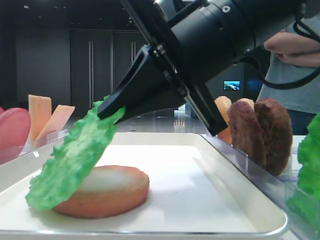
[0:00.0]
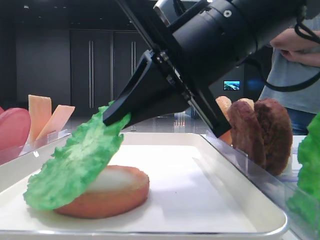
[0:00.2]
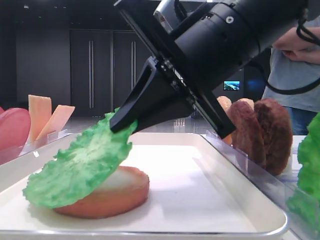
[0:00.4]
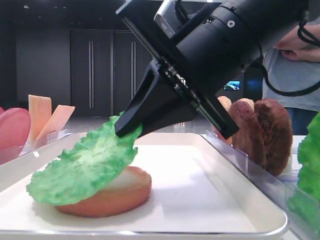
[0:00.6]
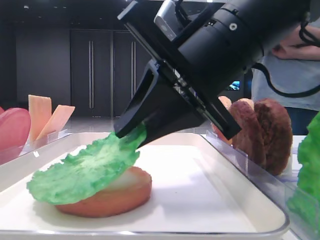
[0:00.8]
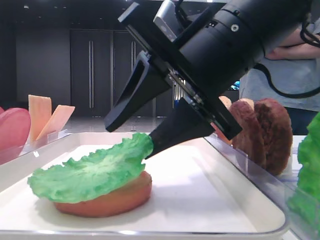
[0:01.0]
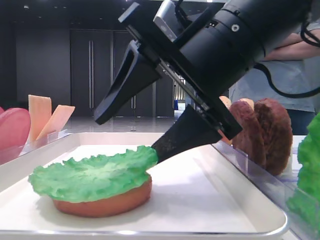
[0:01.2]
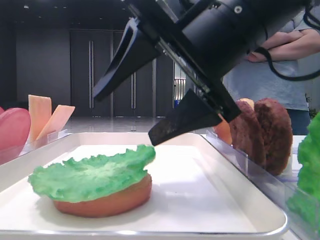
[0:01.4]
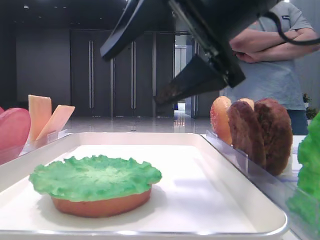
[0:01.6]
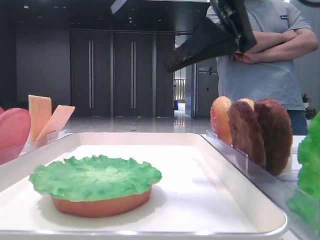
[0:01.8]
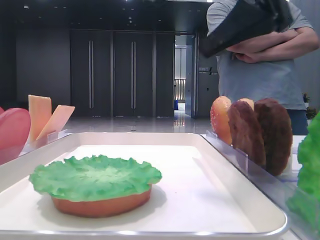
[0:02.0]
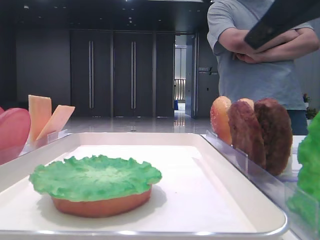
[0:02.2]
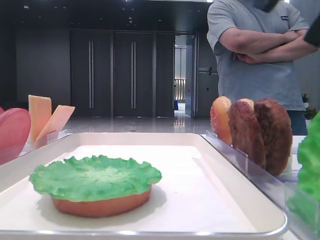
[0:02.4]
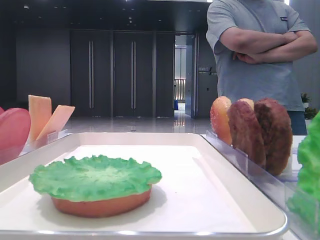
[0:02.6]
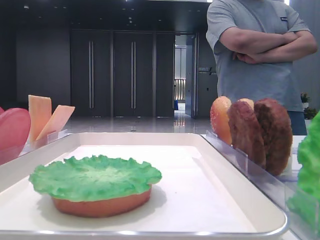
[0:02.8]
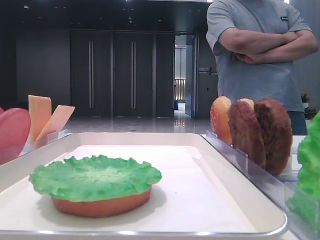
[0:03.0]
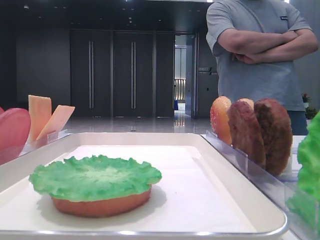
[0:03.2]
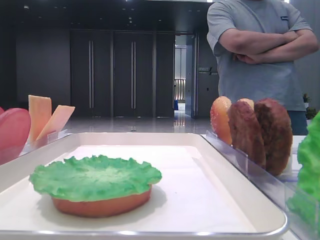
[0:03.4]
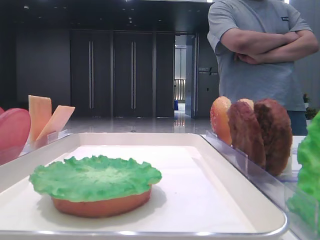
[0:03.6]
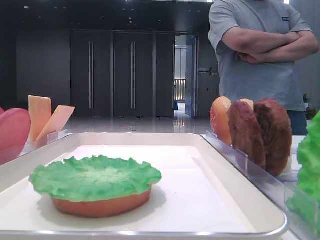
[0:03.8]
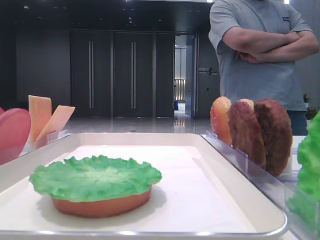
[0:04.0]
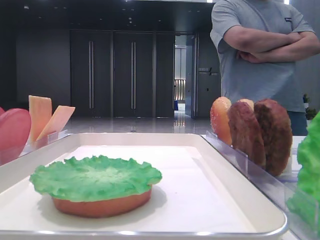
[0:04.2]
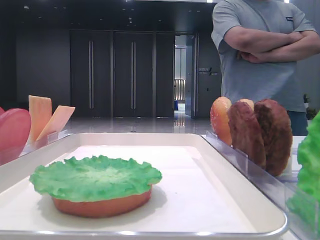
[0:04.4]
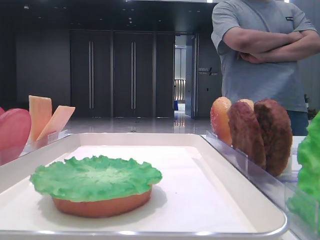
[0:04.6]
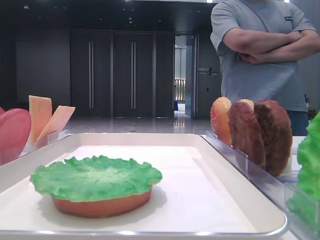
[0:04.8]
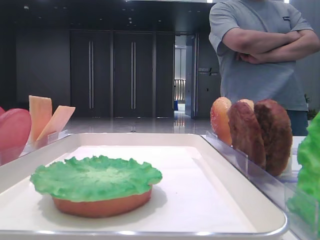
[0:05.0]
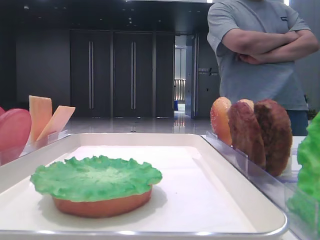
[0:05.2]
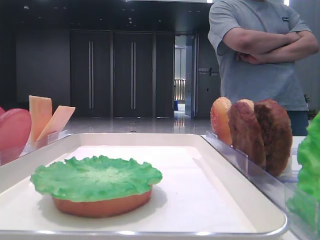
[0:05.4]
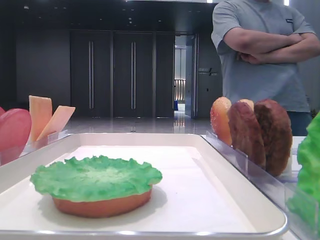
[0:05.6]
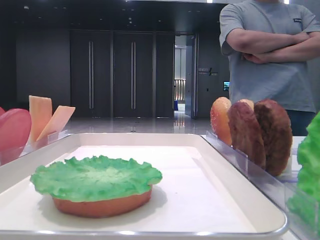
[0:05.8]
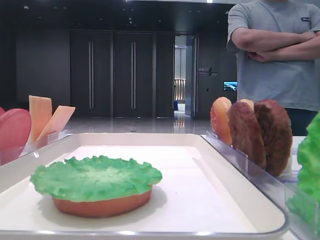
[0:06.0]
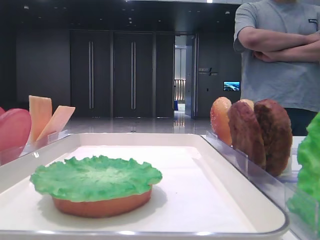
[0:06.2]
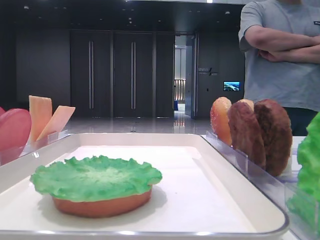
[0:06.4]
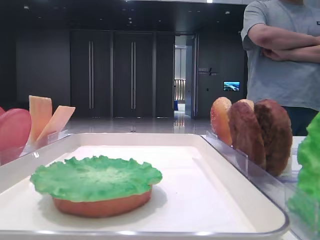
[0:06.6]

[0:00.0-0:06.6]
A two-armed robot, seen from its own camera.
0.0 to 1.6 s: The right gripper opens up.
1.6 to 3.2 s: The right gripper travels to the right by approximately 25 cm.
3.2 to 5.0 s: The right gripper heads backward, covering approximately 20 cm.
5.0 to 6.6 s: The grippers move only a little.

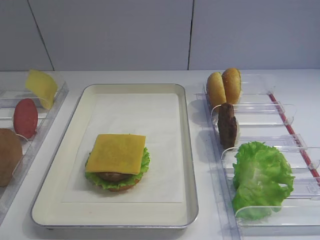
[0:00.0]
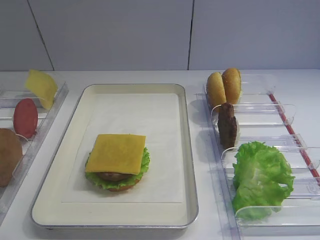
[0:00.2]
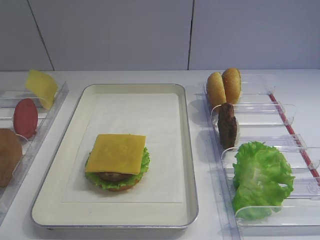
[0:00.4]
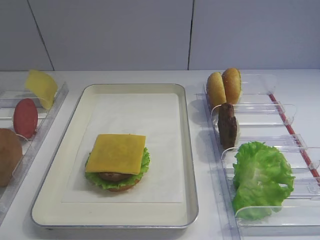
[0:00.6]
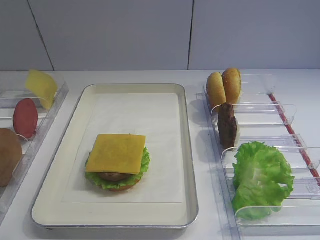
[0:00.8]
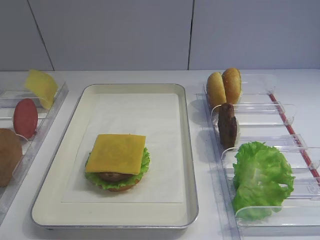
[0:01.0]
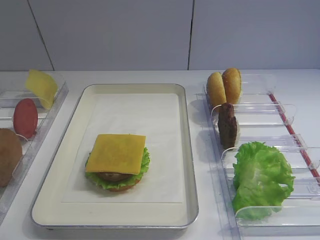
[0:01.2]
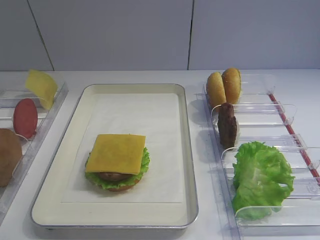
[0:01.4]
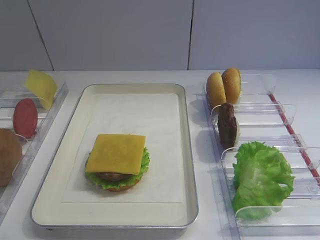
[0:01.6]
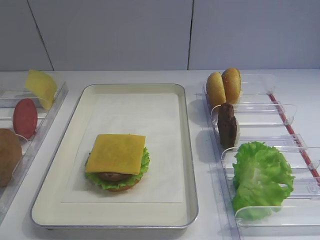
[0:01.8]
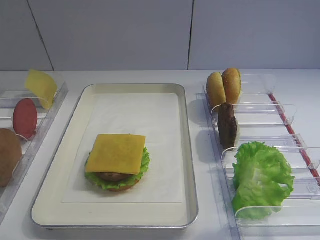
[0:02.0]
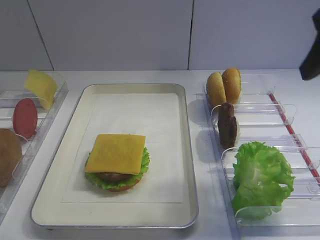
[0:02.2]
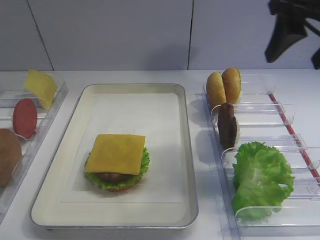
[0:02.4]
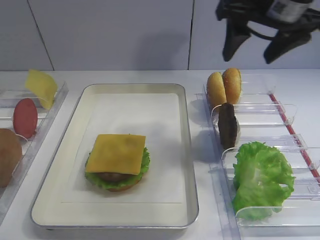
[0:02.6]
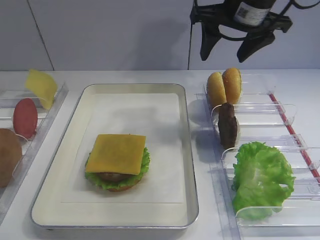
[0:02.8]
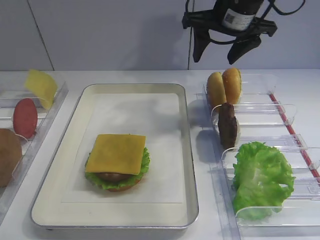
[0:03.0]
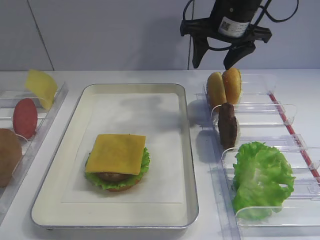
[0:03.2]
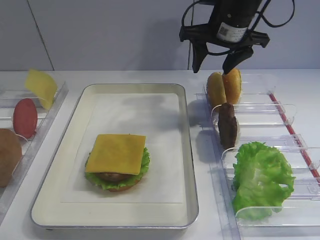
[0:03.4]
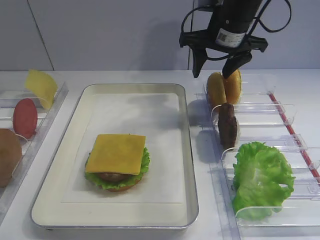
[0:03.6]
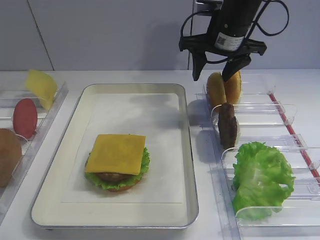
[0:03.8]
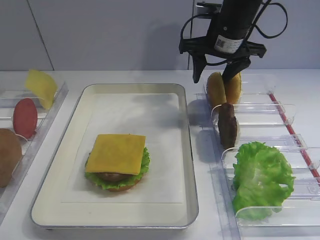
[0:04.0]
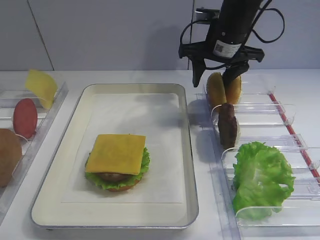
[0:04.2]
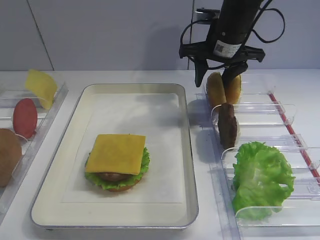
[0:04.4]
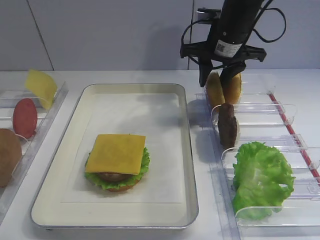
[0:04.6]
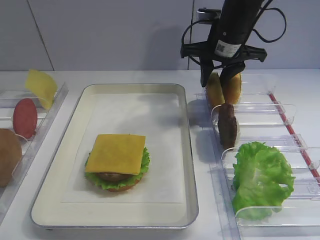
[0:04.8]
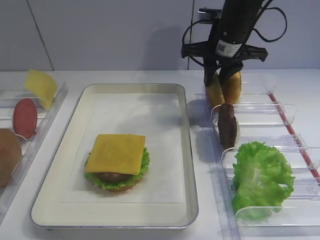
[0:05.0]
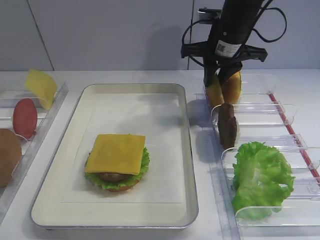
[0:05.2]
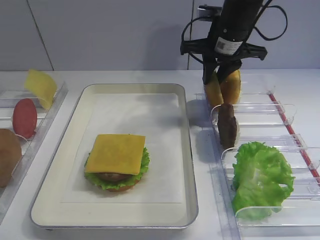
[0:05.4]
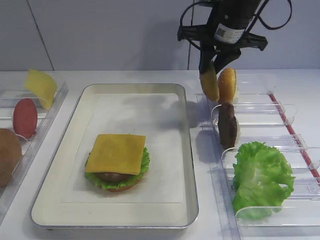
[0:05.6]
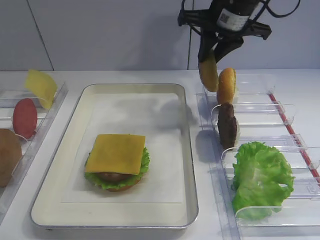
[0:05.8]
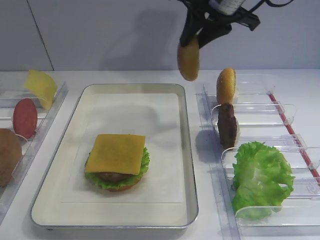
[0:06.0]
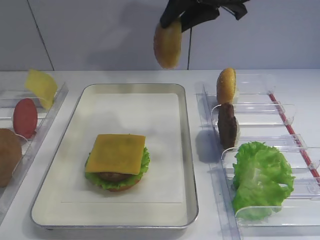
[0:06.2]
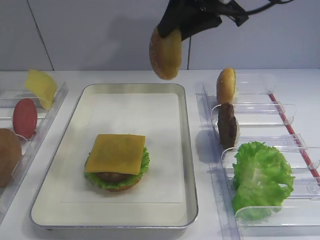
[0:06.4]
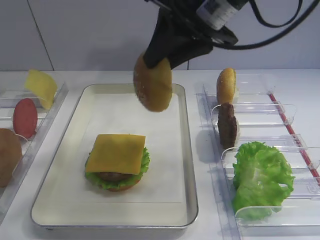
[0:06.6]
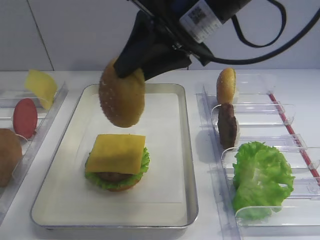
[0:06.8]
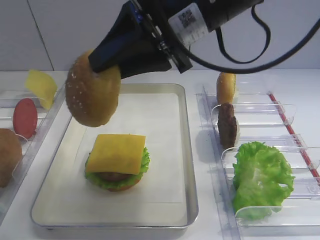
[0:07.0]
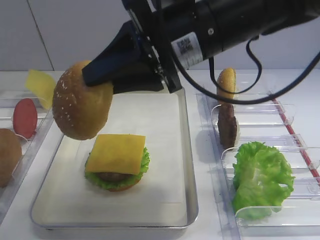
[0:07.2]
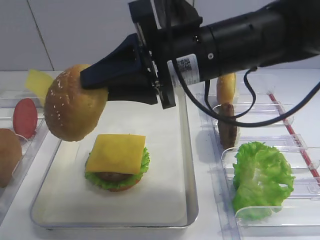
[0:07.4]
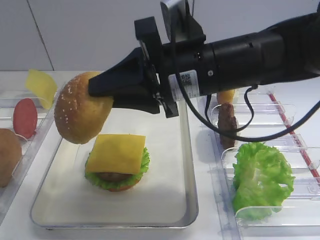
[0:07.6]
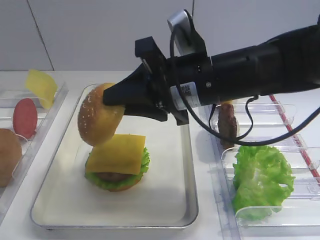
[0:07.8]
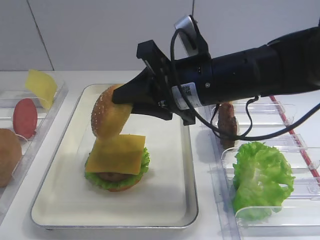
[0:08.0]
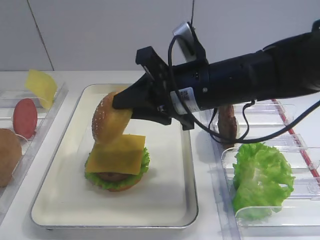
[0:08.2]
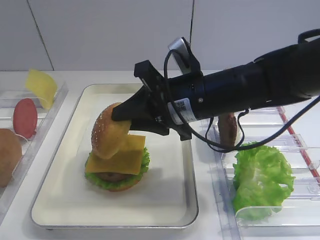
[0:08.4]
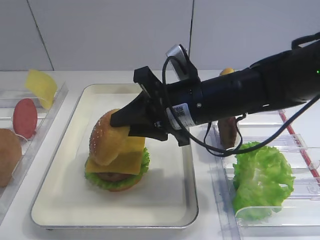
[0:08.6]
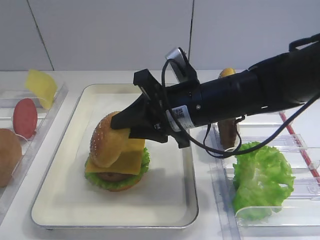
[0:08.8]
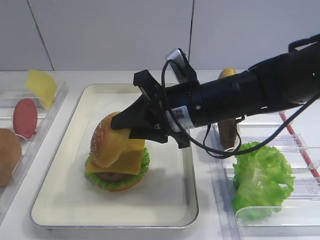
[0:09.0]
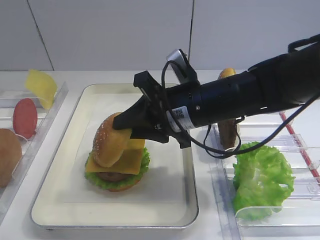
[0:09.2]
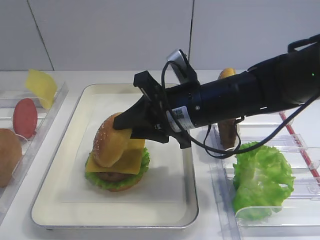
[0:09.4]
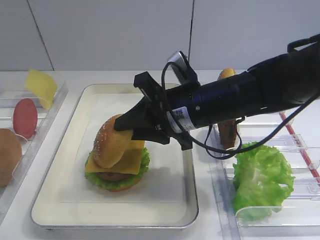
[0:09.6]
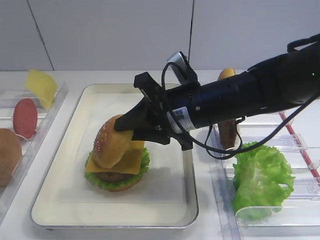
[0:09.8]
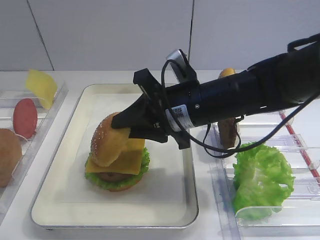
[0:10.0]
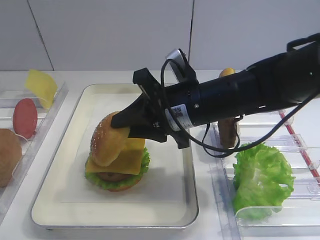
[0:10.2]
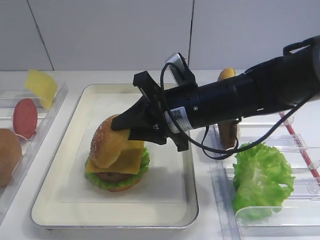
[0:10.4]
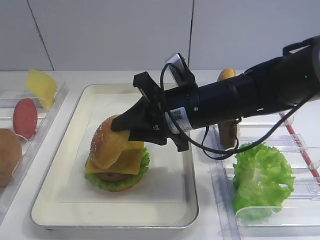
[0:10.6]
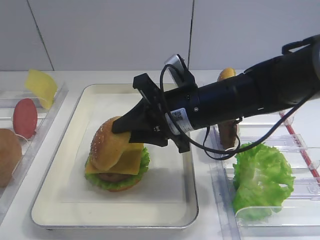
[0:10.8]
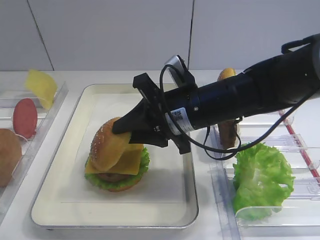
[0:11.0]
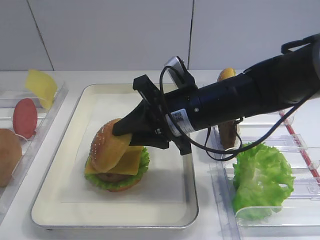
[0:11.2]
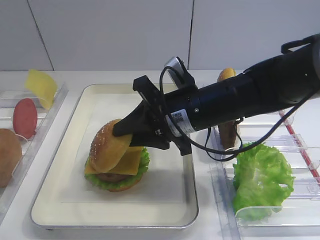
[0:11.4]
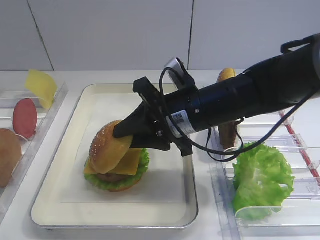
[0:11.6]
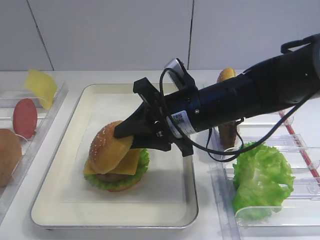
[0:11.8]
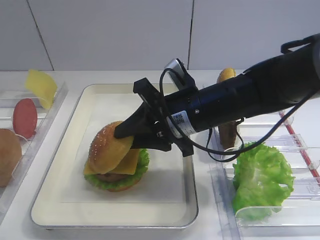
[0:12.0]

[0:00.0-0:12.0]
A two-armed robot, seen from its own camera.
Step, 0.0 to 5.6 s: Pick up the hamburger lid with the right gripper.
1.6 to 3.0 s: The right gripper heads forward, covering some 35 cm.
3.0 to 4.4 s: The right gripper moves downward, approximately 5 cm.
4.4 to 6.0 s: The right gripper shifts roughly 10 cm upward, and closes up.
6.0 to 7.6 s: The right gripper heads backward, downward and to the left, covering approximately 15 cm.
7.6 to 9.0 s: The right gripper is displaced downward by about 5 cm.
9.0 to 10.4 s: Neither gripper changes place.
10.4 to 12.0 s: The grippers move only a little.

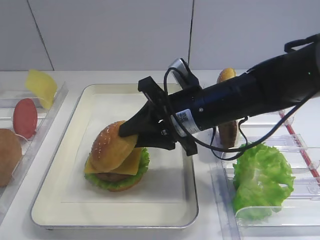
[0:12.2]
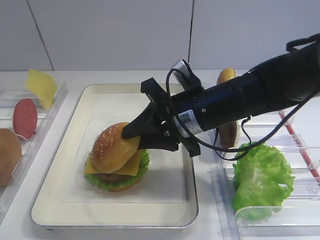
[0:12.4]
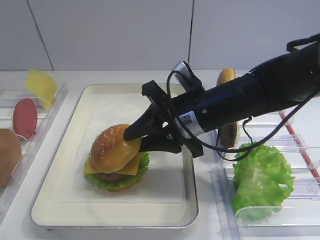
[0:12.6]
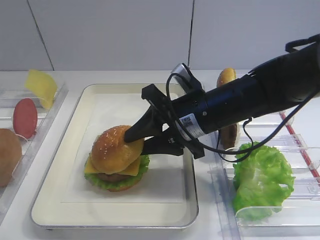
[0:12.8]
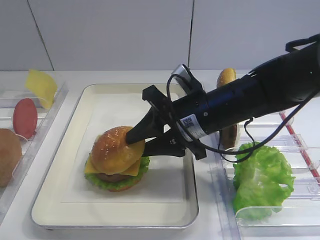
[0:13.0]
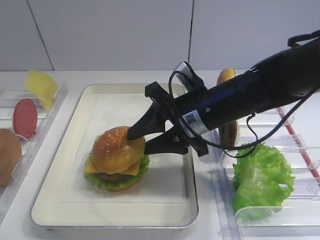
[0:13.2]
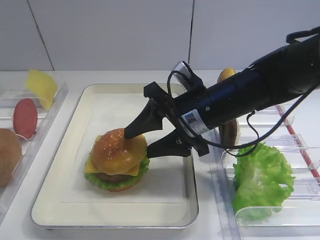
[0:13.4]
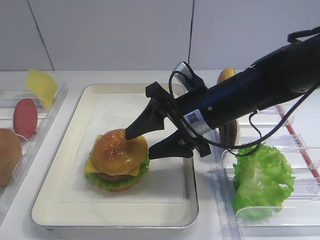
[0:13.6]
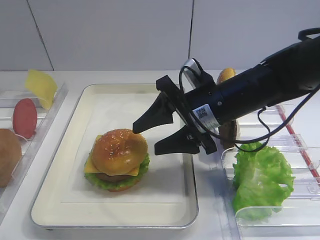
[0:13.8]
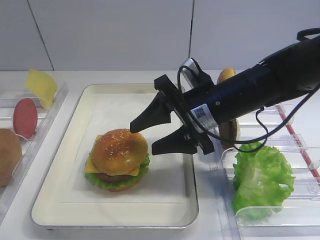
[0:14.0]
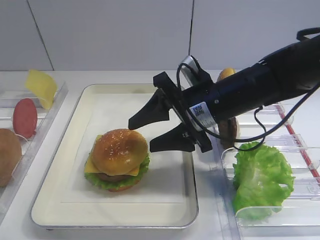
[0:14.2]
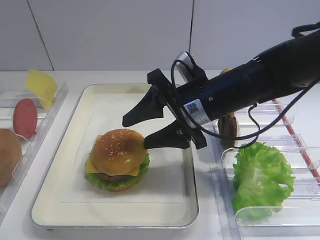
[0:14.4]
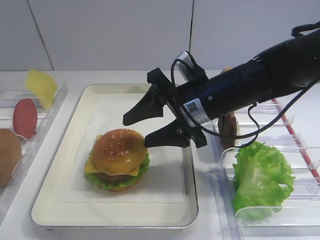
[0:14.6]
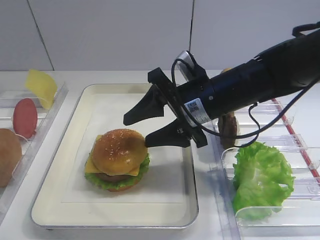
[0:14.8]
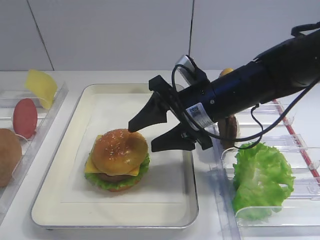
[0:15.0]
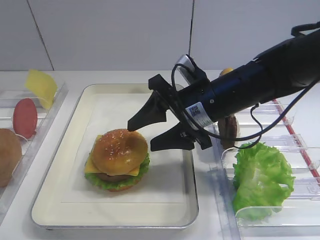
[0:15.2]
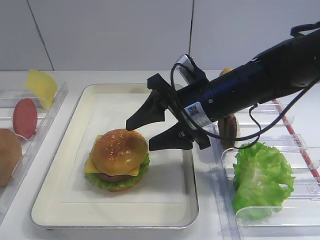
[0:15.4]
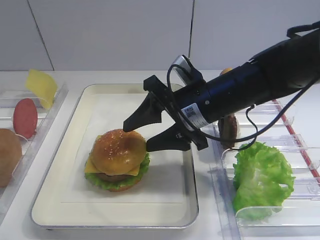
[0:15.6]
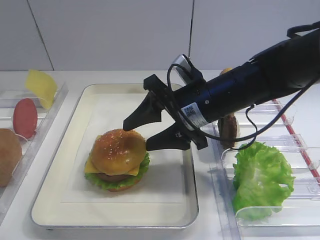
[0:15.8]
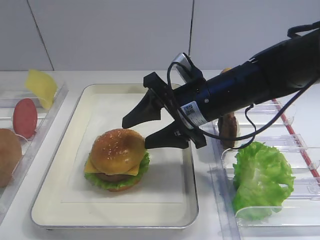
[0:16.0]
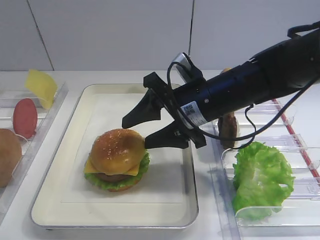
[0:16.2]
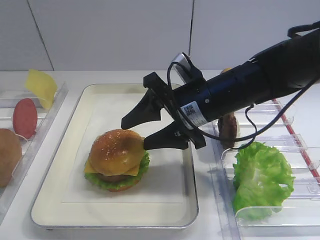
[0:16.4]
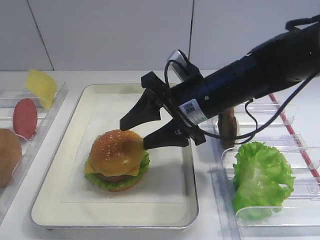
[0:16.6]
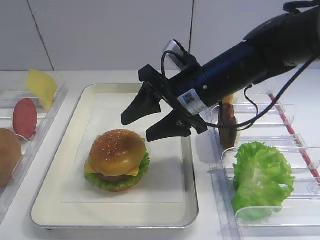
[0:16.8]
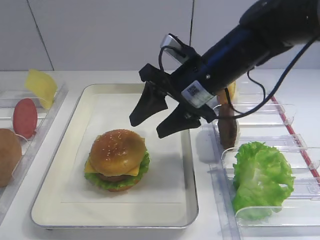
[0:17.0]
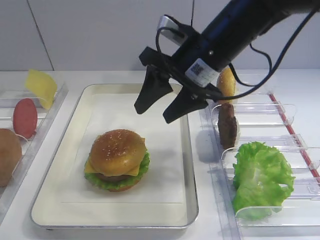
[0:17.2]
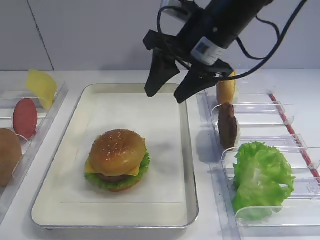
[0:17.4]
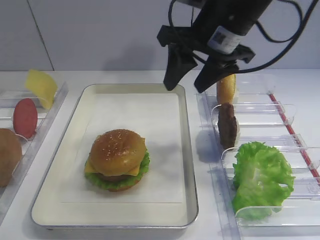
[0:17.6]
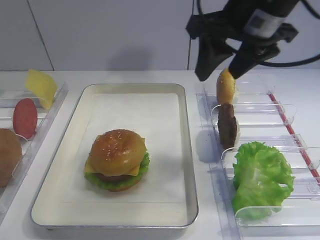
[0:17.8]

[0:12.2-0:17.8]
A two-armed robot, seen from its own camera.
Step, 12.2 to 14.8 s: Place the hamburger lid on the cheese slice with the right gripper.
12.2 to 13.6 s: The right gripper opens up.
13.6 to 16.4 s: Neither gripper changes place.
16.4 to 17.8 s: The right gripper is displaced upward by about 15 cm.
